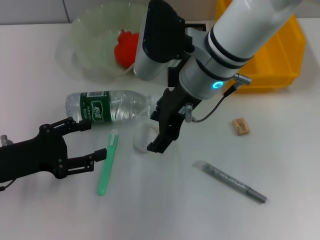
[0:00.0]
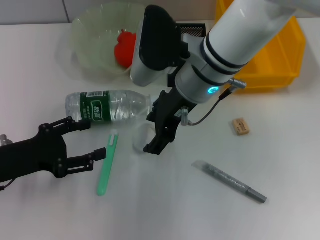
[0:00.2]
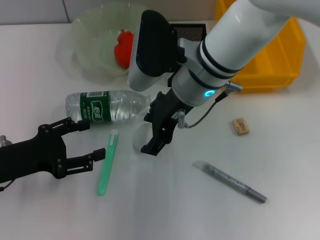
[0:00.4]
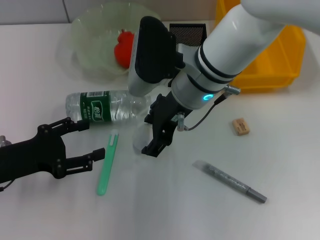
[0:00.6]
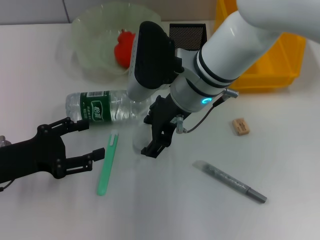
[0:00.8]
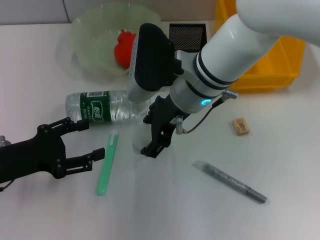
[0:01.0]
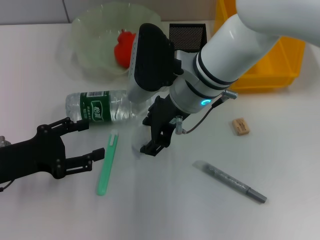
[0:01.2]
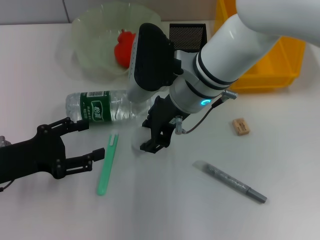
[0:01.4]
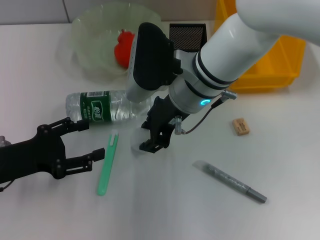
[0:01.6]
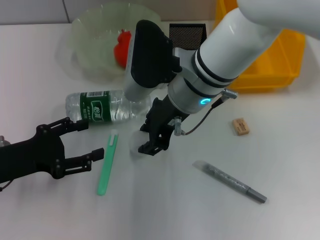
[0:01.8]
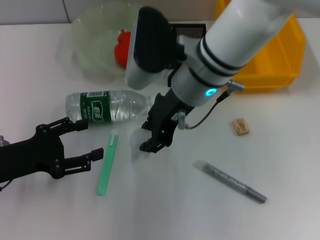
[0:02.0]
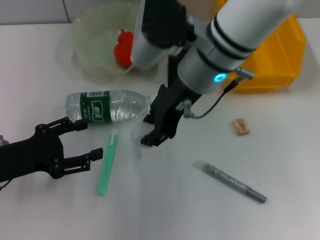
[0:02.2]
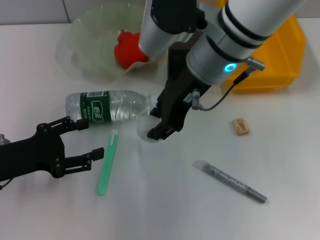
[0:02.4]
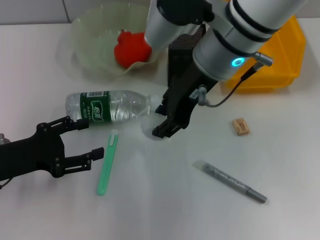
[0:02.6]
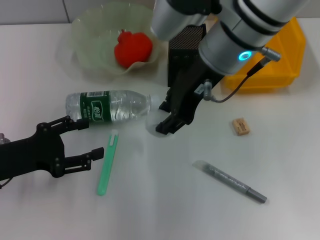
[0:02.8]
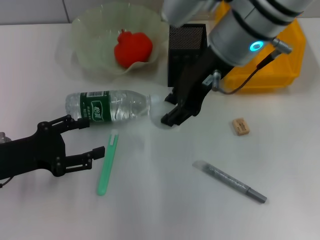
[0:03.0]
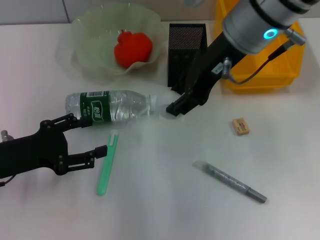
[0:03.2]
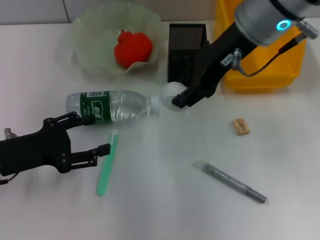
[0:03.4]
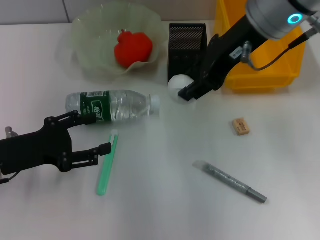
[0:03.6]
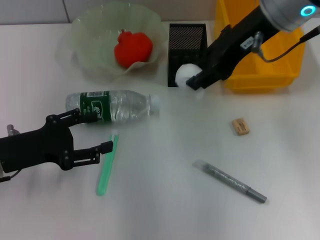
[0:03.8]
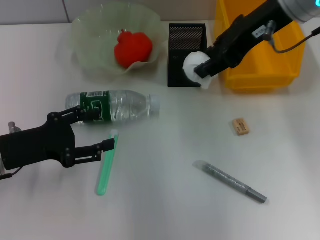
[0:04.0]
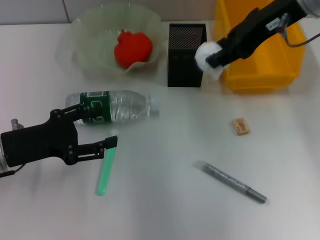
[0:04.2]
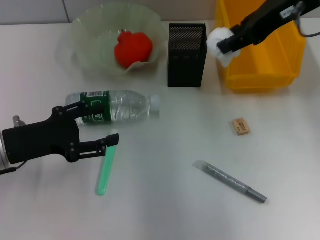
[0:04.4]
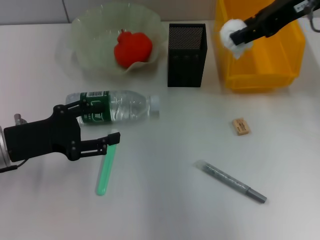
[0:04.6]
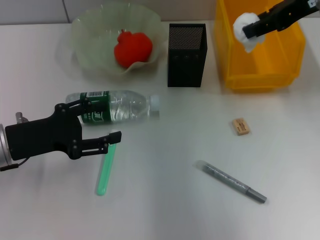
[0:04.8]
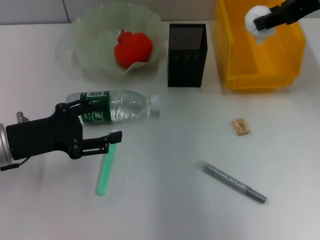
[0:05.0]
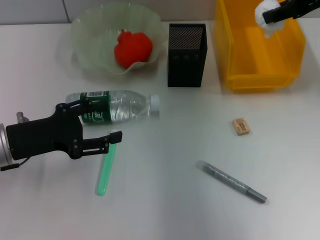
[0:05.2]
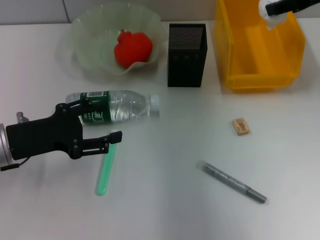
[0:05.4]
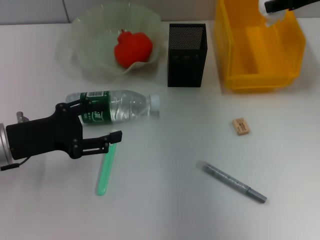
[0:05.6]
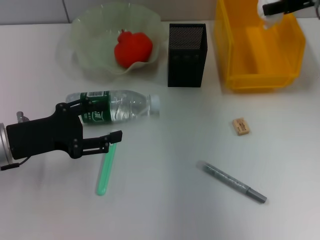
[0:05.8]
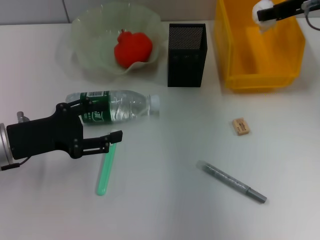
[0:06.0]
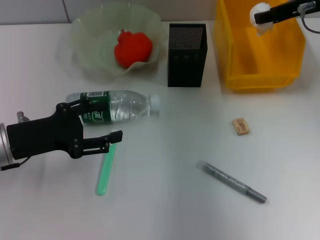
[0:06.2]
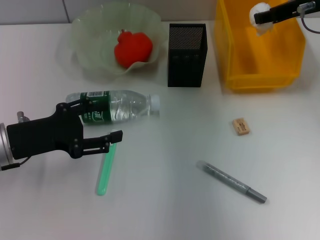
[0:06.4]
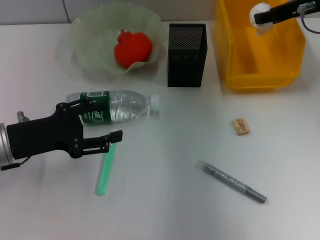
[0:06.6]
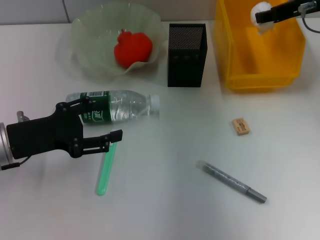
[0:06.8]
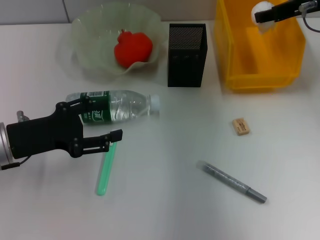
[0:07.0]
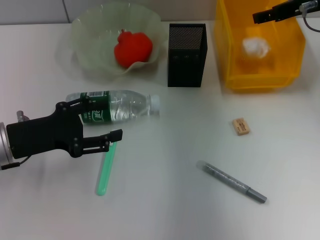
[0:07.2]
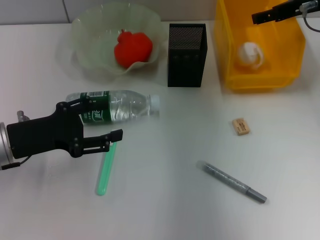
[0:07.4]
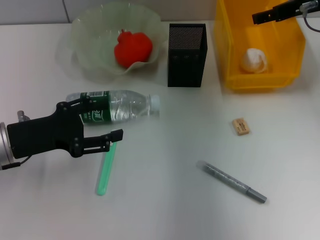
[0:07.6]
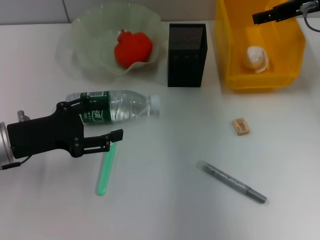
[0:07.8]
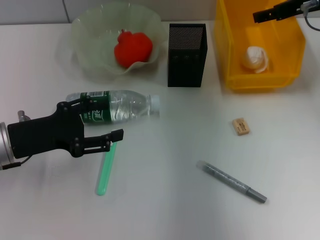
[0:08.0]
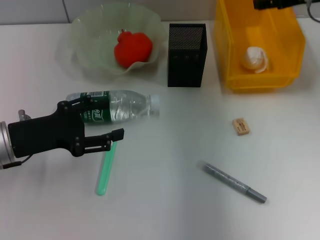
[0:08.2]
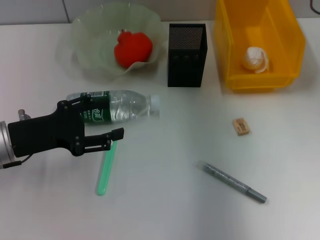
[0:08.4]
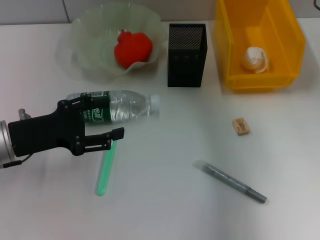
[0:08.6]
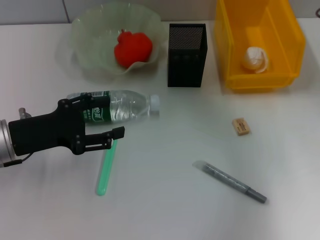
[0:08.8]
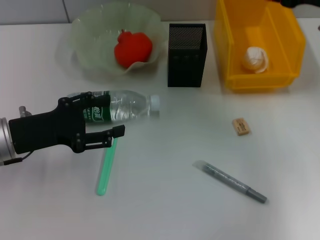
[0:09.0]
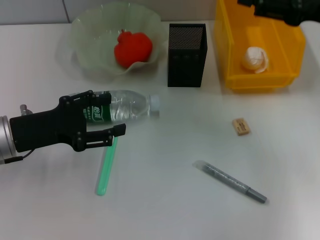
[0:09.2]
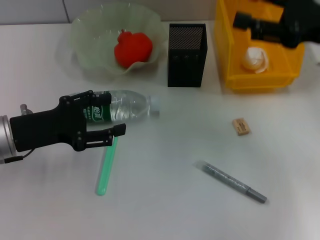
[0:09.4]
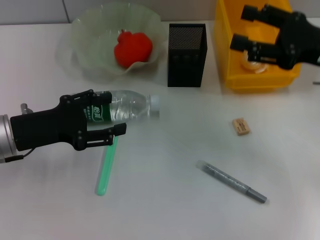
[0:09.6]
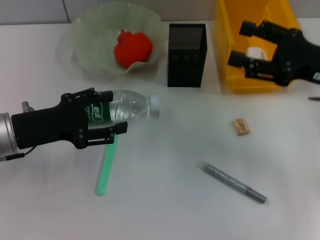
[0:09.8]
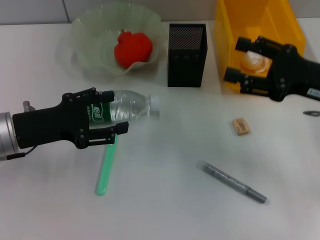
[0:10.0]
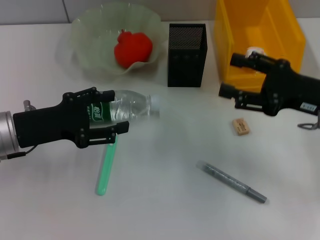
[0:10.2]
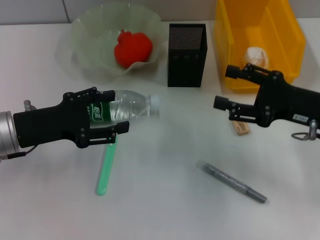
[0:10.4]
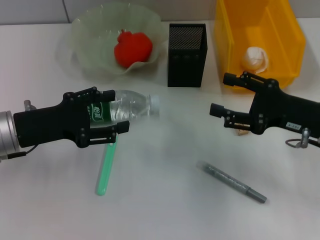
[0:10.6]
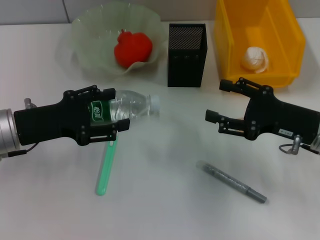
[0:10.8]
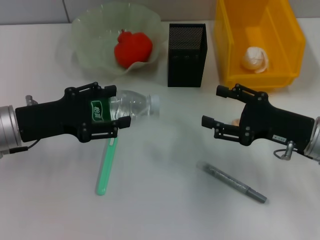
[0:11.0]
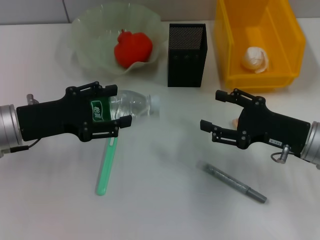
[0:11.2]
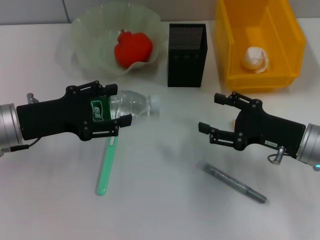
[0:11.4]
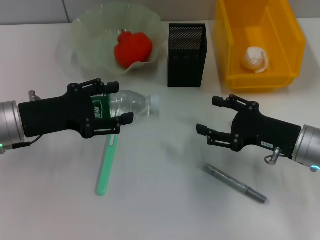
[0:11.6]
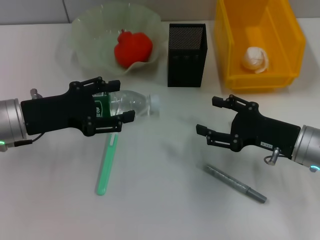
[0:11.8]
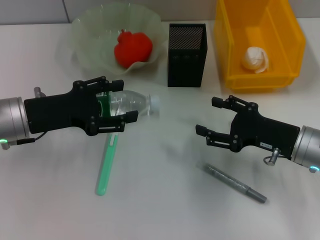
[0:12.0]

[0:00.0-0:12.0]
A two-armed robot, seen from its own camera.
Step, 0:01.8 to 0:07.8: Place the paper ball into the trash can with the right hand.
0:00.0 to 0:01.6: There are only small adjustments of the grippers.
0:01.6 to 0:03.0: The right gripper moves upward, some 10 cm.
0:03.0 to 0:04.4: The right gripper moves to the right, approximately 10 cm.
0:04.4 to 0:06.0: The right gripper shifts about 10 cm downward and to the right.
0:06.0 to 0:07.6: The right gripper opens its fingers.
0:07.6 to 0:09.0: The right gripper moves backward, roughly 5 cm.
0:09.0 to 0:10.4: The right gripper heads downward and backward, covering some 15 cm.
0:10.4 to 0:12.0: The right gripper heads downward, covering approximately 5 cm.

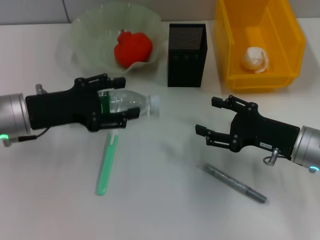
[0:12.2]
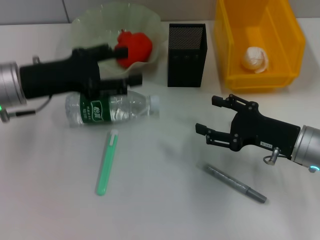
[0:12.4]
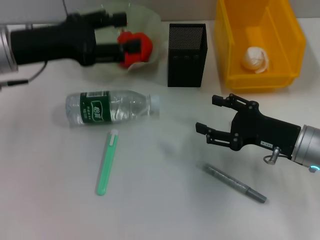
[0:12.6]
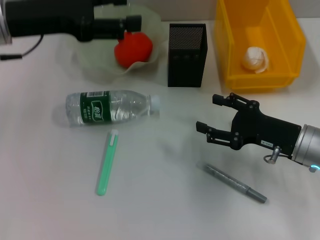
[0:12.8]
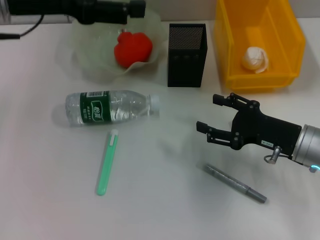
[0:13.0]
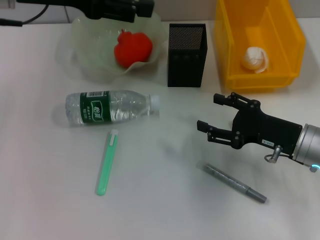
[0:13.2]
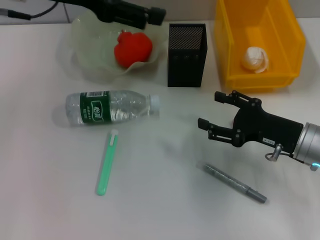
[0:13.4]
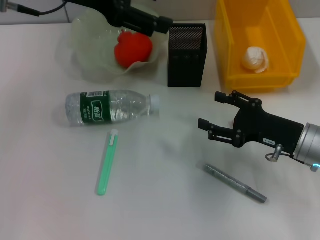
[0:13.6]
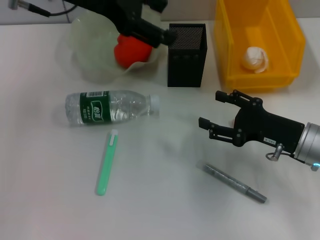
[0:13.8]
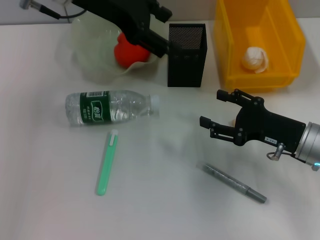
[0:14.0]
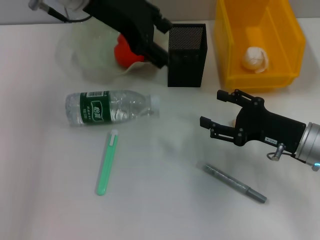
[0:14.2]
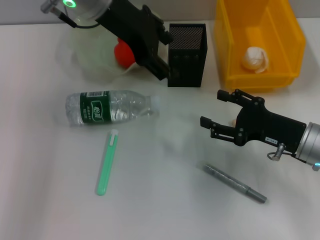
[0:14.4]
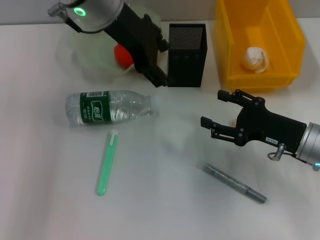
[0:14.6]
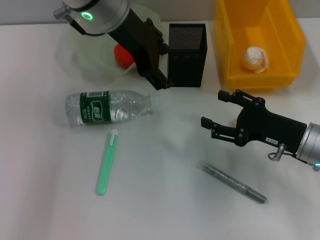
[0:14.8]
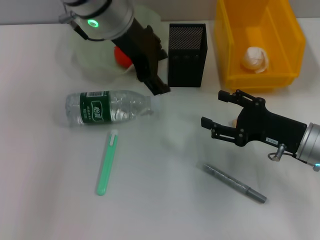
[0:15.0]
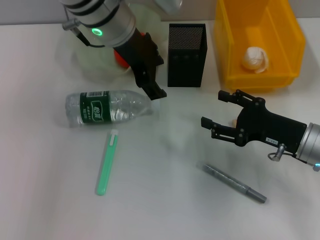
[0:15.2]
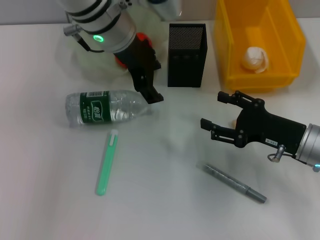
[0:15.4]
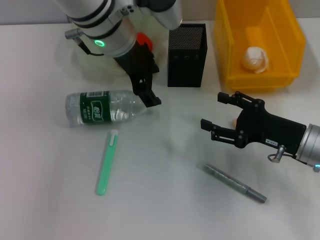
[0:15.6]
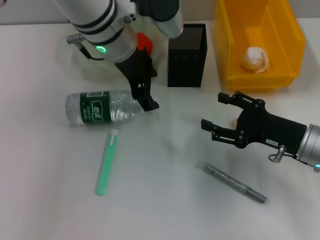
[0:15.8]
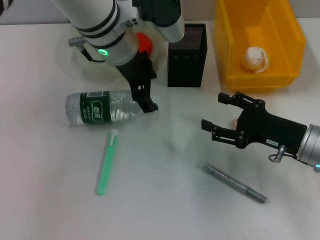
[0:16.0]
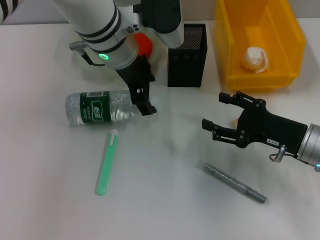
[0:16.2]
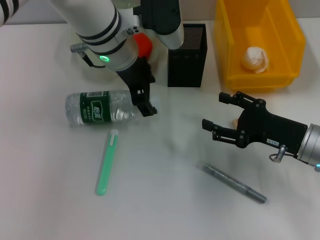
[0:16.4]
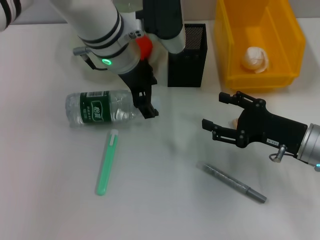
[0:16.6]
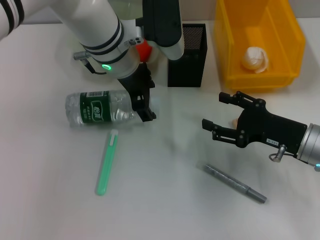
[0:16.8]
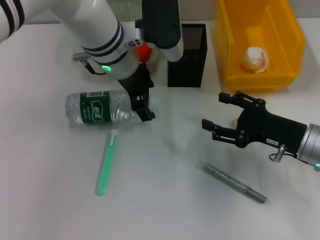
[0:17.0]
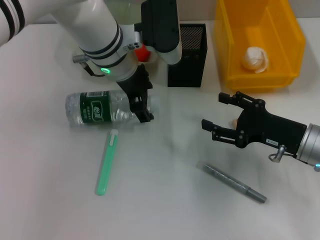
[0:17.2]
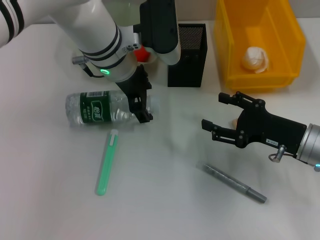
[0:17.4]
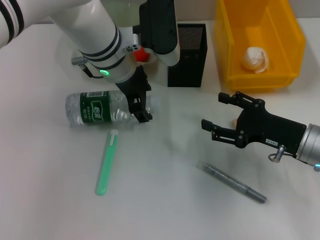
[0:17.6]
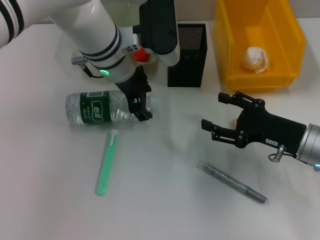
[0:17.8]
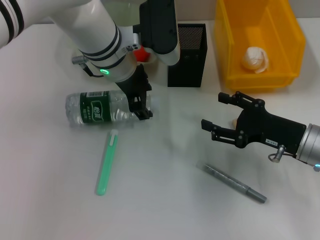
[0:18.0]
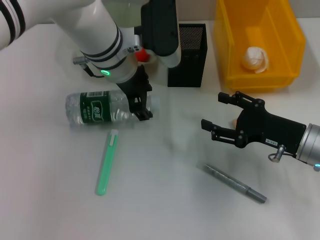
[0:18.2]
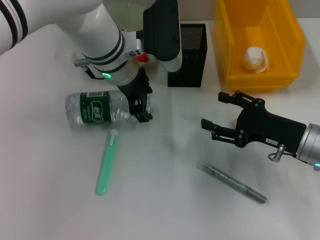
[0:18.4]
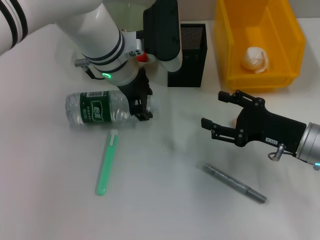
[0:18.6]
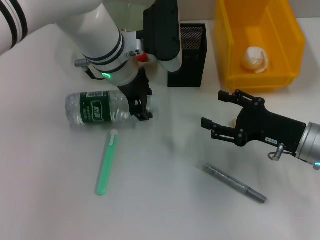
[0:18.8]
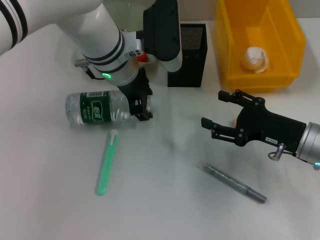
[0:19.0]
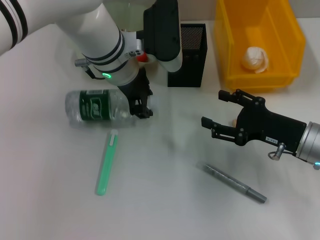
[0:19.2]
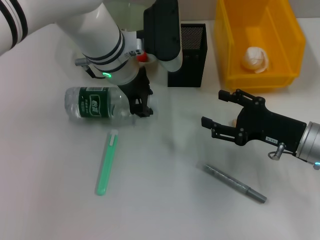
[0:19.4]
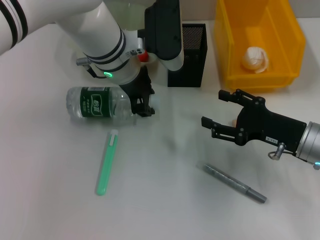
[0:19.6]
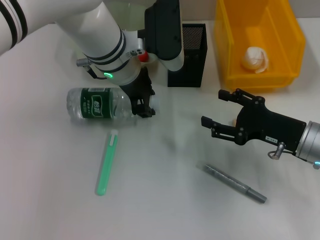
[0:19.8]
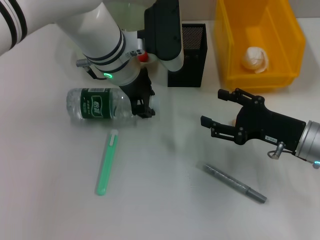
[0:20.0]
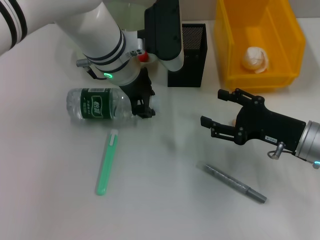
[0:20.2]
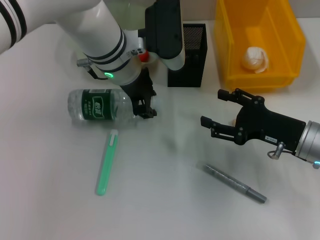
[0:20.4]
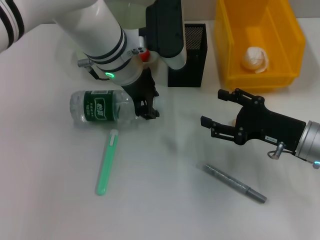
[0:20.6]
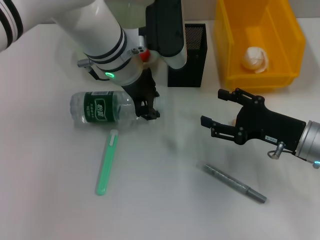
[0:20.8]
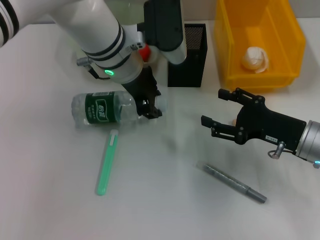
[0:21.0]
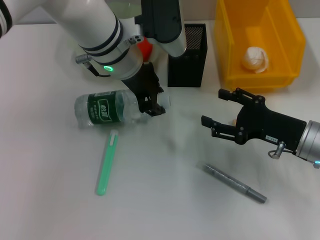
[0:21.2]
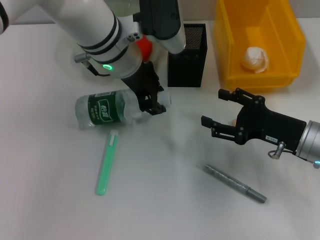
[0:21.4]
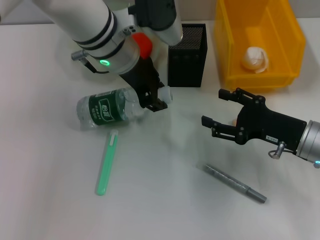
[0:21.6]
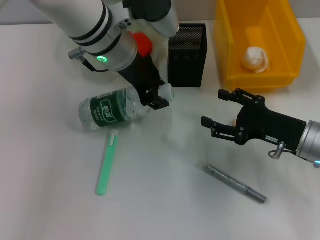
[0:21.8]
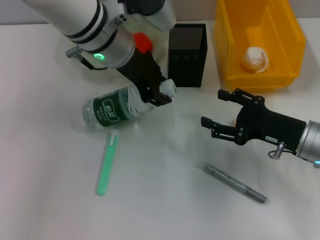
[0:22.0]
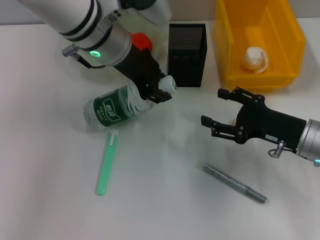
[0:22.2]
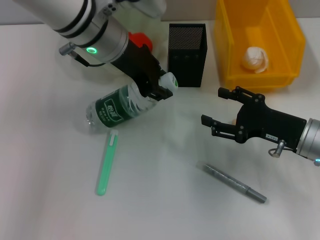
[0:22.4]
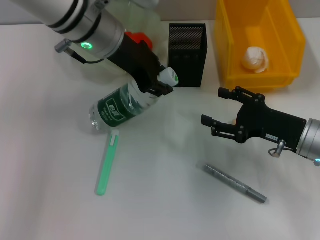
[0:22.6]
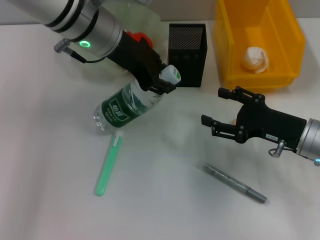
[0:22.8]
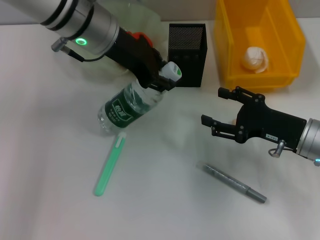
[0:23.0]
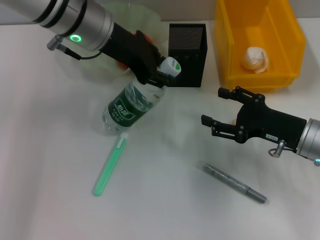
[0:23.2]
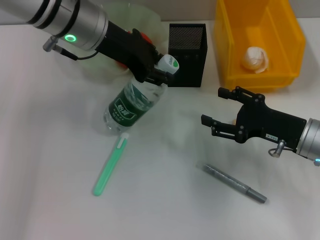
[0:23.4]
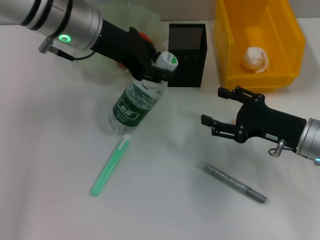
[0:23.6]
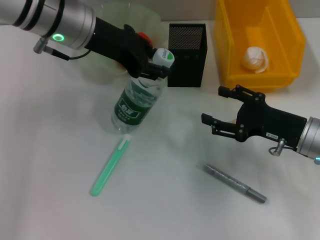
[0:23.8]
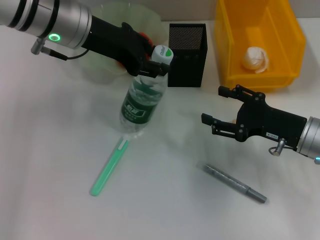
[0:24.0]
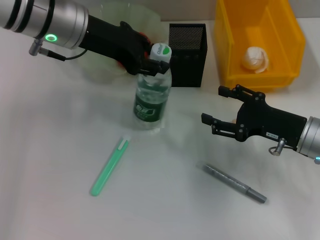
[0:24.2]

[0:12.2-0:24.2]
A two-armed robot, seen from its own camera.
Step, 0:12.2 to 0:19.8: Grab the water bottle with the left hand.
0:12.2 to 0:13.8: The left gripper goes about 20 cm upward, forward and to the right.
0:13.8 to 0:15.2: The left gripper travels to the right and downward by some 10 cm.
0:15.2 to 0:16.6: The grippers make only small movements.
0:16.6 to 0:18.2: There are only small adjustments of the grippers.
0:18.2 to 0:19.8: The left gripper closes its fingers.
0:19.8 to 0:21.2: The grippers move only a little.
0:21.2 to 0:22.6: The grippers stay close to where they were, moving slightly.
0:22.6 to 0:24.2: The grippers make only small movements.
